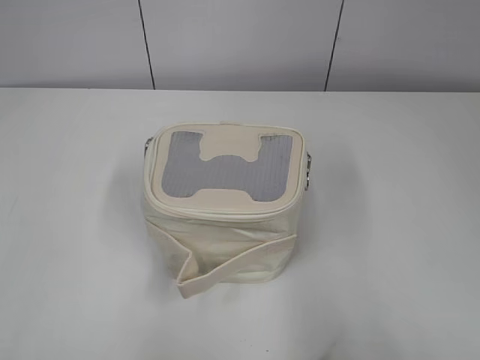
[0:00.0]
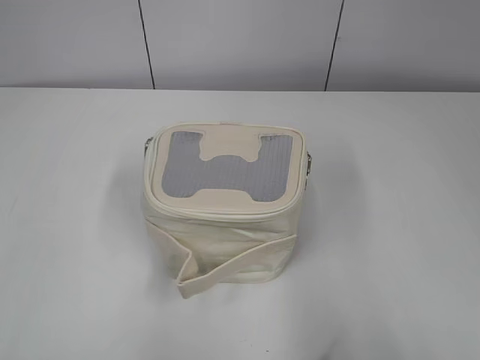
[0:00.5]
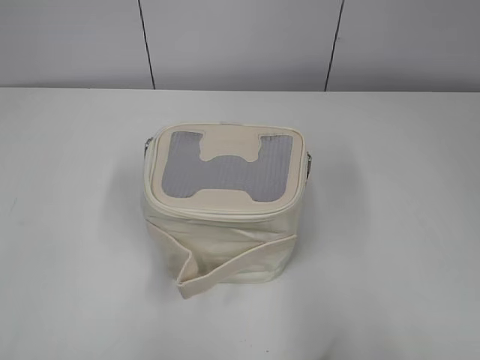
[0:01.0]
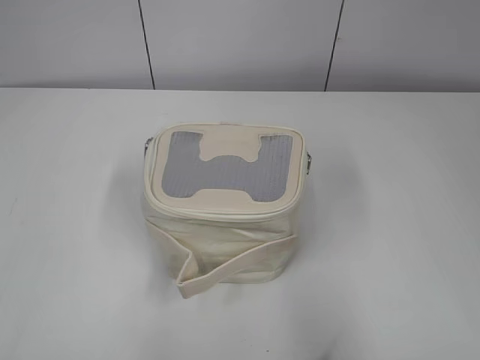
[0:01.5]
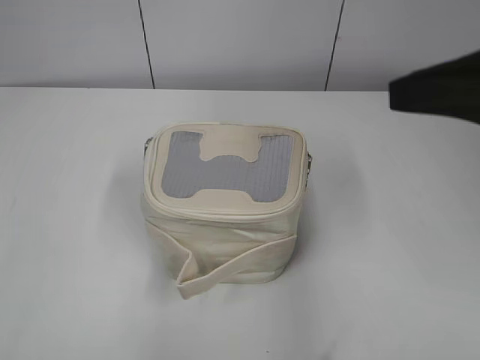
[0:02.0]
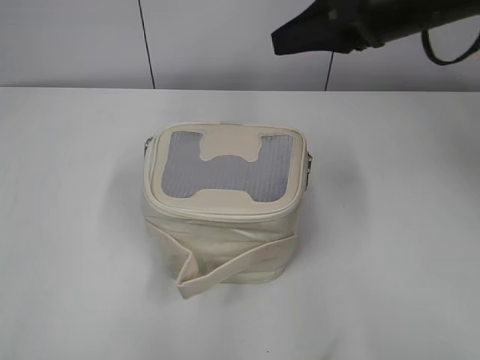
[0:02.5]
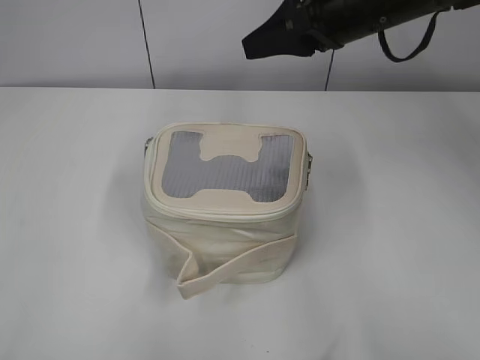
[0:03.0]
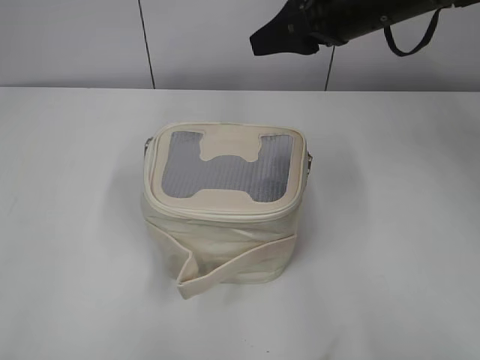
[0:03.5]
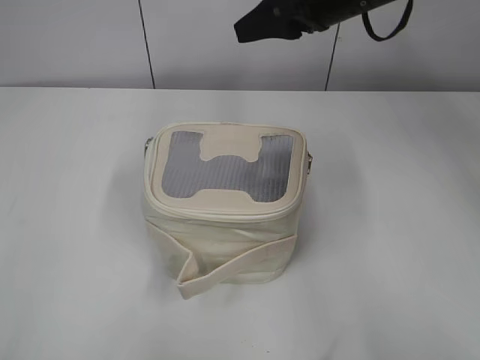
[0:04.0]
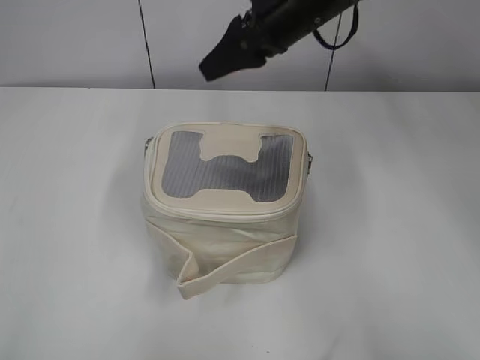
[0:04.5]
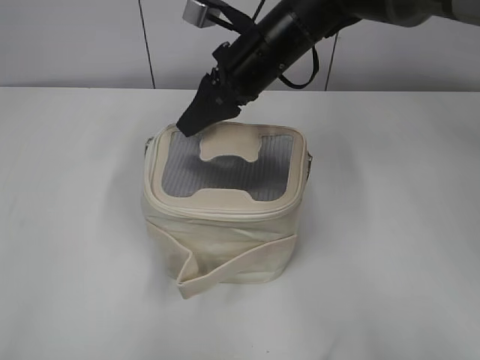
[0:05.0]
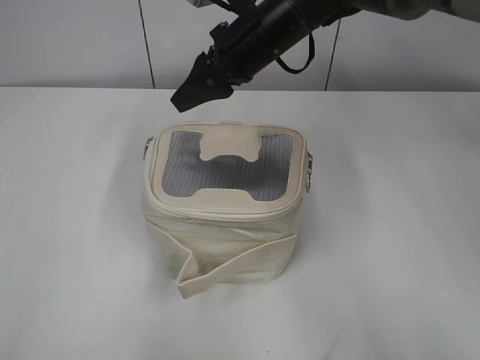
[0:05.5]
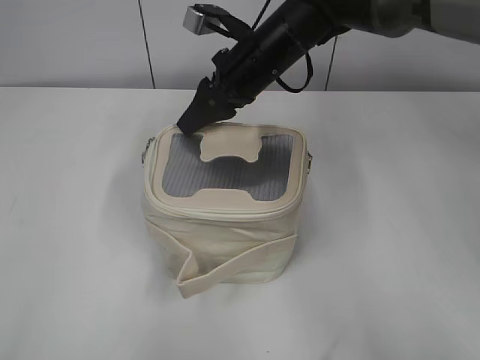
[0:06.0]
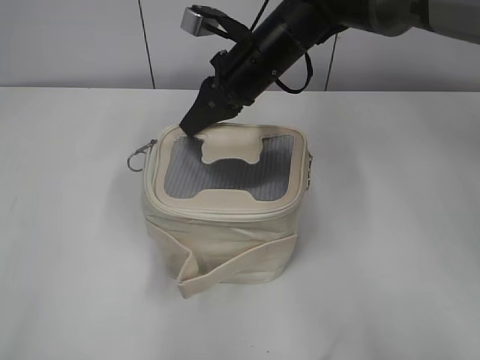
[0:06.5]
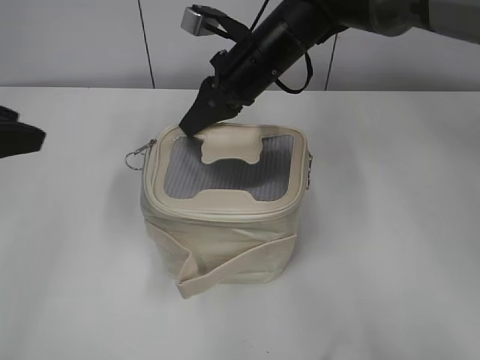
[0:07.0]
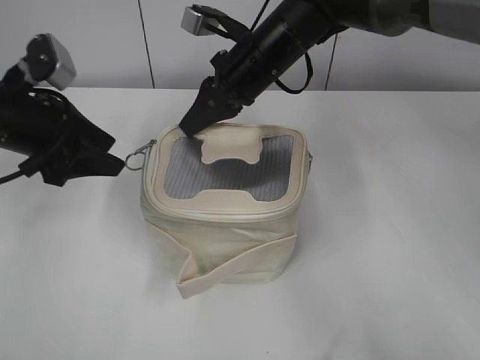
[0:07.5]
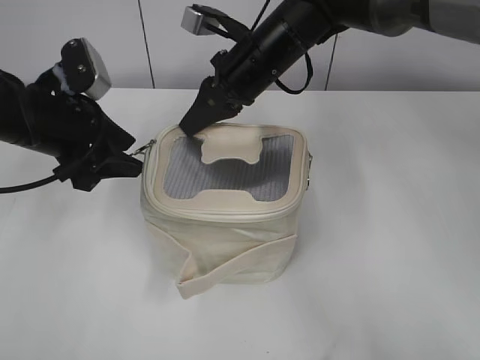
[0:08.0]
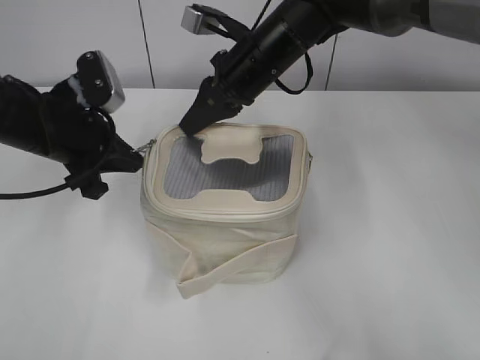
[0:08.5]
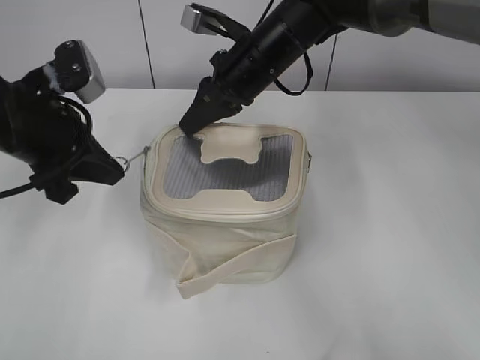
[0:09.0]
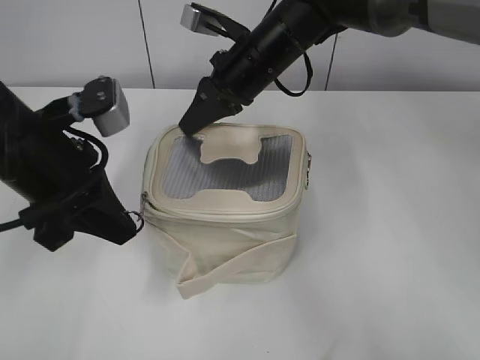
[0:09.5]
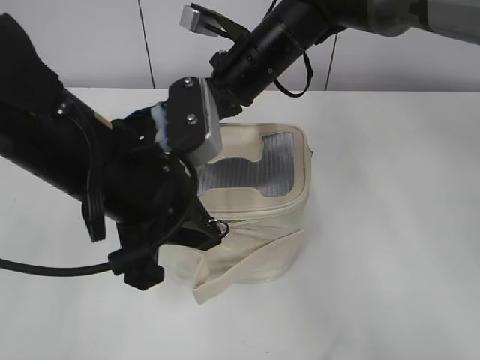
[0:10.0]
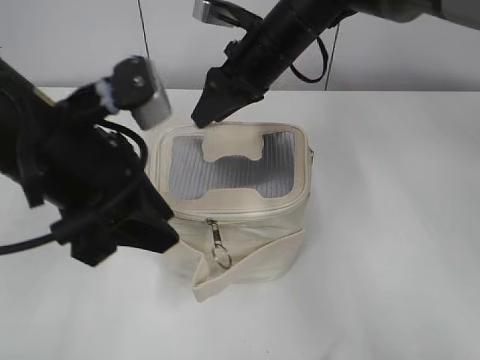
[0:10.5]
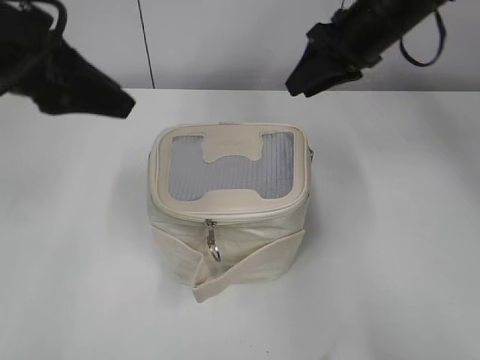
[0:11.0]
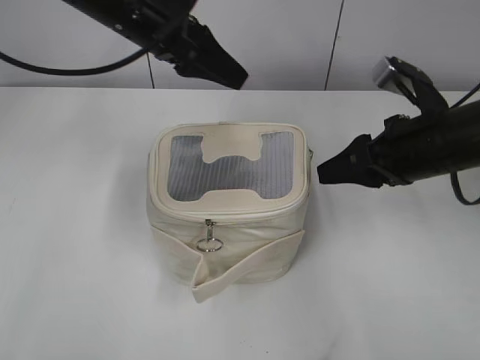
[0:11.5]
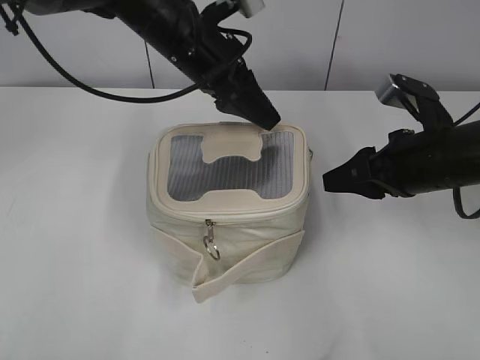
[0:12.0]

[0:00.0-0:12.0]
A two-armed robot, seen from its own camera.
Step, 0:00.0 to 0:10.0: Zip up the bag with your left hand.
0:02.0 to 0:04.0: The right gripper heads forward and to the left, covering some 25 cm.
0:04.0 to 0:06.0: The right gripper heads to the left and downward, covering some 15 cm.
0:06.0 to 0:08.0: The left gripper travels forward by about 30 cm, and opens its fingers. Meanwhile the right gripper closes up.
0:08.0 to 0:10.0: The left gripper moves backward and to the right, approximately 15 cm, and closes its fingers.
0:10.0 to 0:12.0: The left gripper goes about 20 cm forward, and opens. The right gripper goes roughly 25 cm to the right and backward, and opens up.

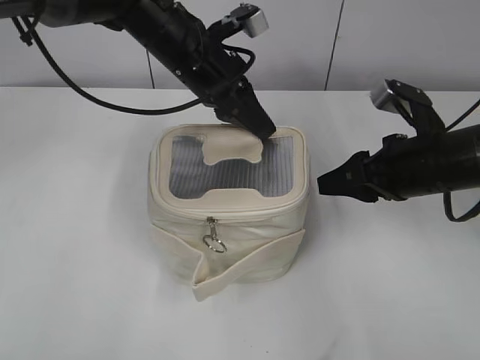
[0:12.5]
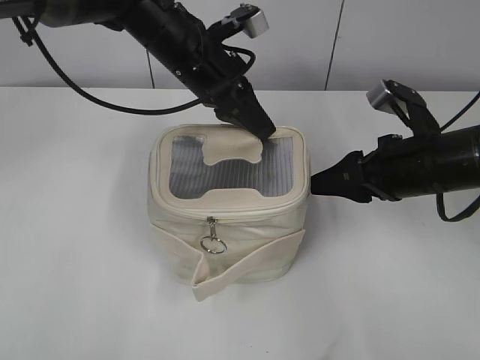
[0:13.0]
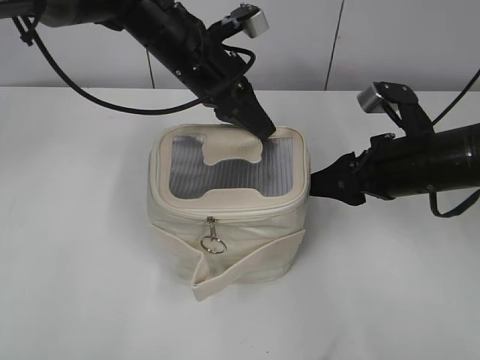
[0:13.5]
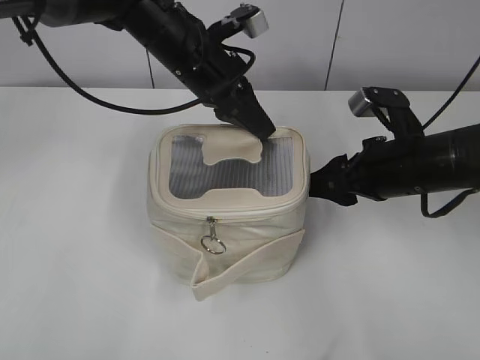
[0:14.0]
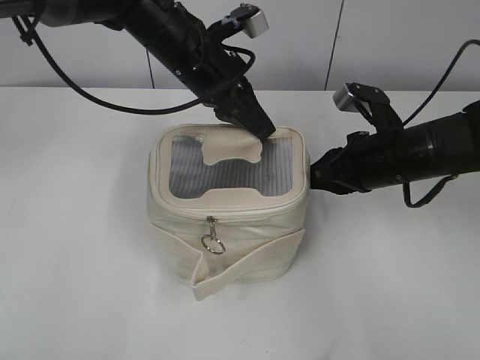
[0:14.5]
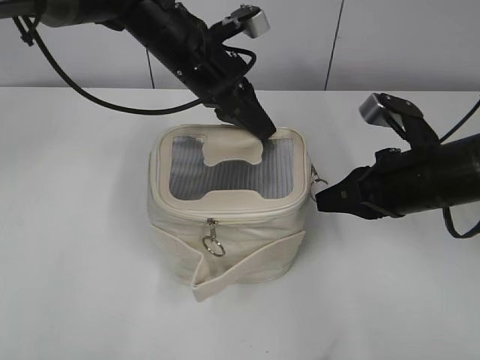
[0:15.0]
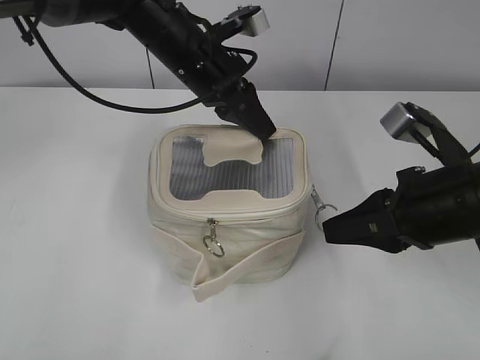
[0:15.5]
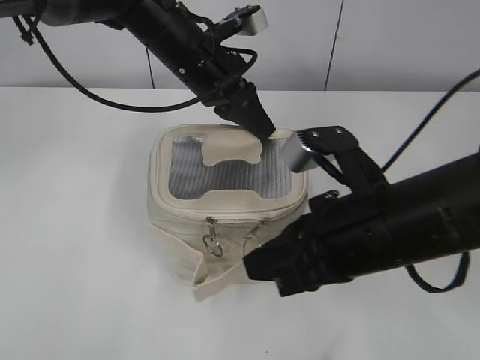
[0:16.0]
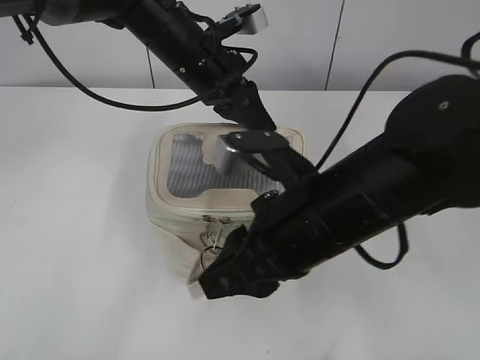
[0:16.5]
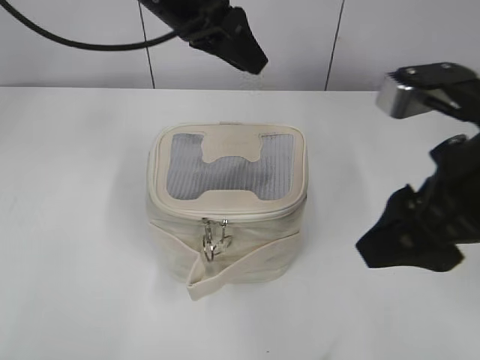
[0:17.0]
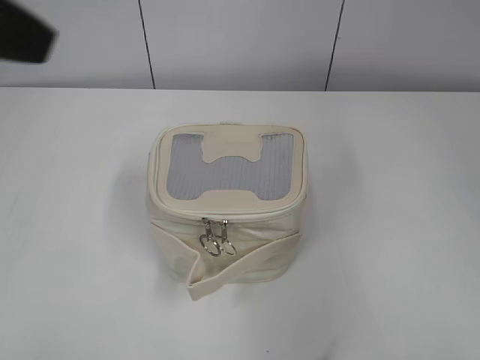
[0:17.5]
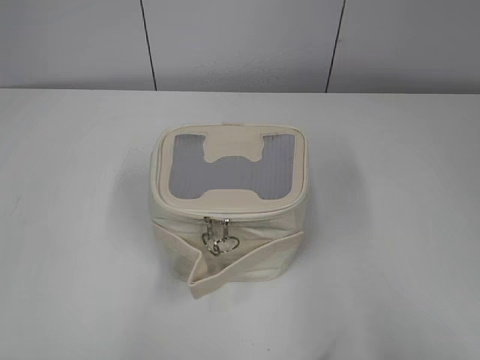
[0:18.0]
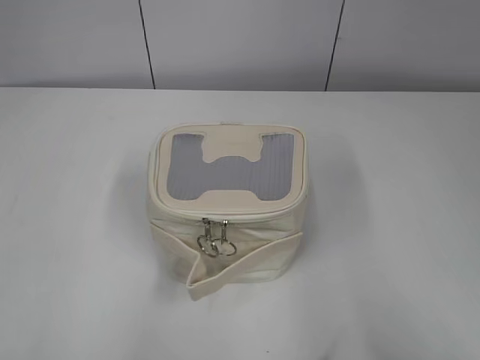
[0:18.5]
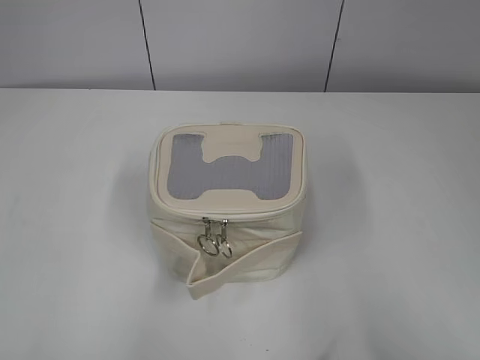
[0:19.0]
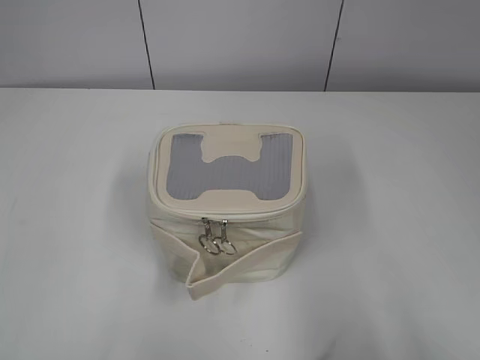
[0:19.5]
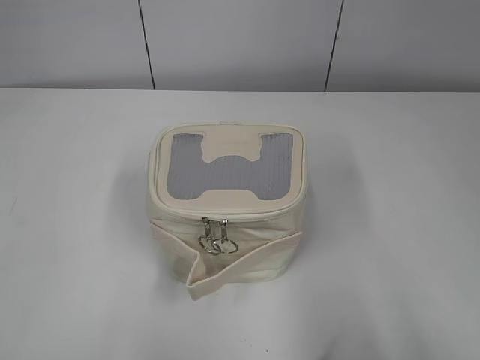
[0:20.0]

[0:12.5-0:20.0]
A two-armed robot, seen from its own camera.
Step, 0:12.5 to 0:16.5: Zip up the bag with your right hand.
0:12.5 to 0:14.5: The right gripper closes its fingers.
0:14.5 to 0:16.5: The right gripper heads to the left and backward, covering some 15 cm.
0:16.5 to 0:18.0: The left gripper moves backward and to the left, roughly 50 cm, and opens its fingers; the right gripper travels to the right, backward and upward by about 35 cm, and opens.

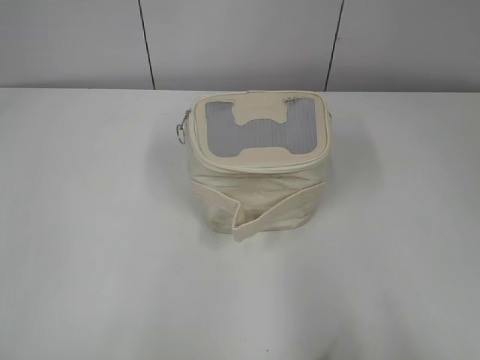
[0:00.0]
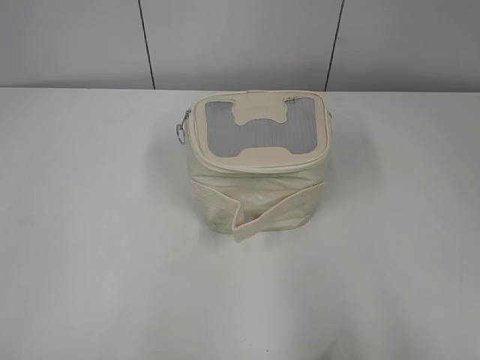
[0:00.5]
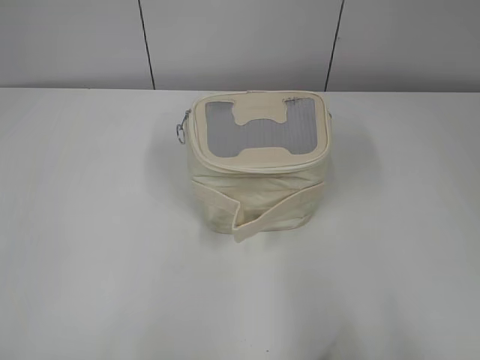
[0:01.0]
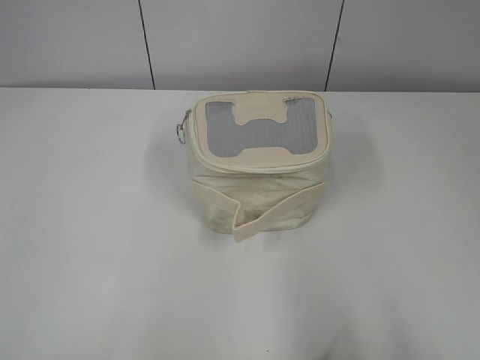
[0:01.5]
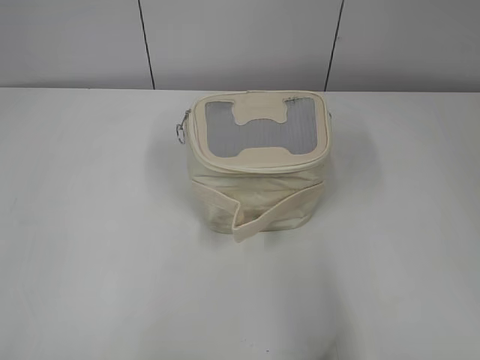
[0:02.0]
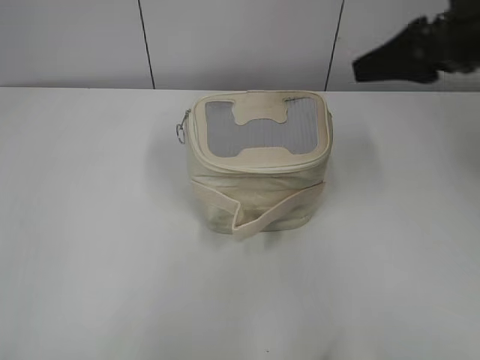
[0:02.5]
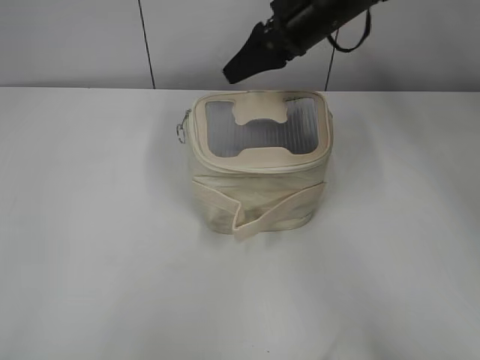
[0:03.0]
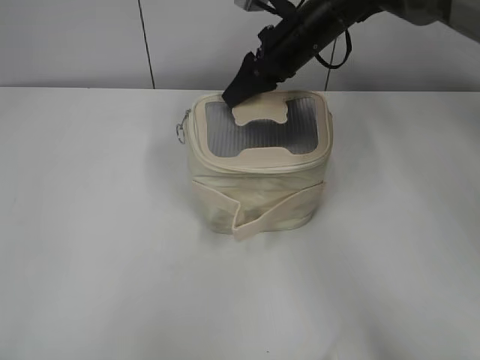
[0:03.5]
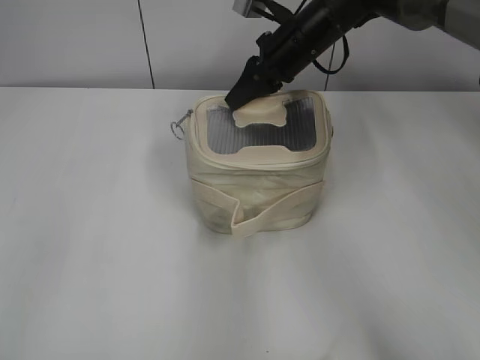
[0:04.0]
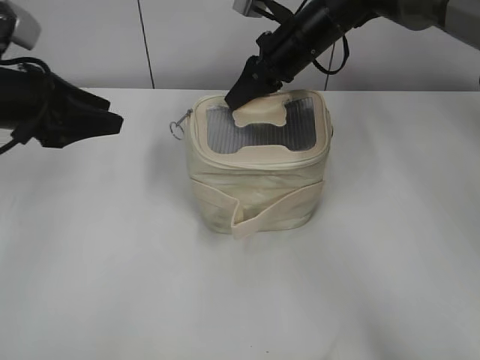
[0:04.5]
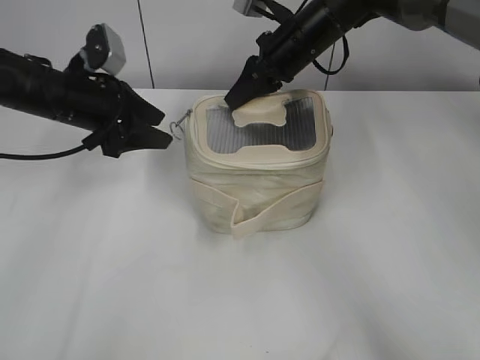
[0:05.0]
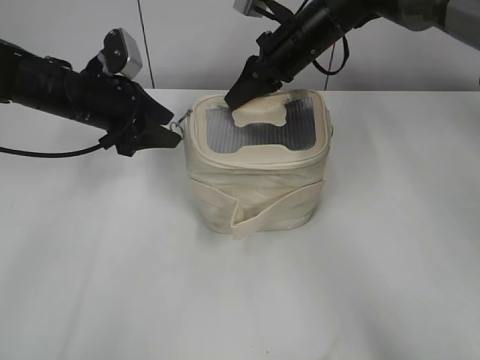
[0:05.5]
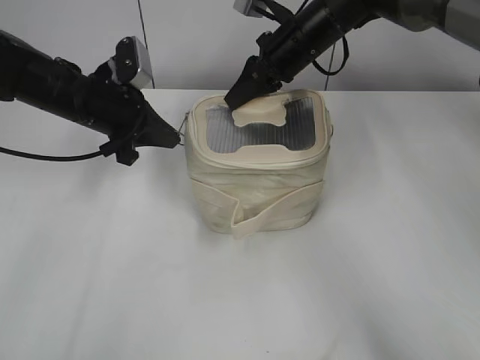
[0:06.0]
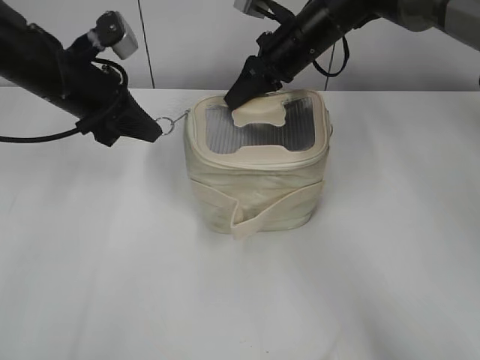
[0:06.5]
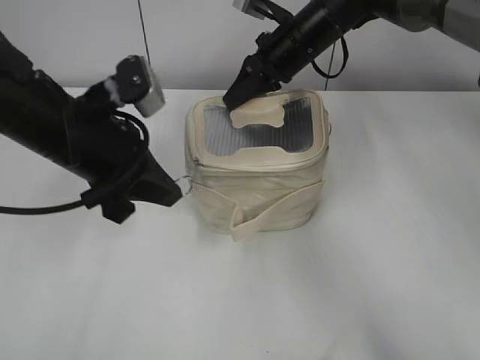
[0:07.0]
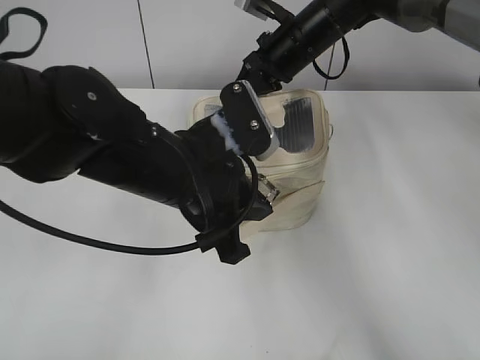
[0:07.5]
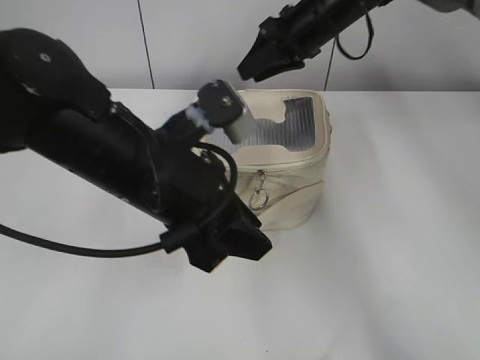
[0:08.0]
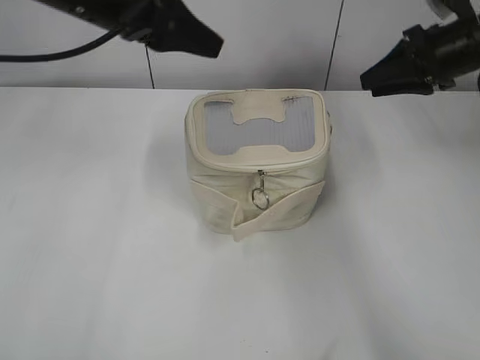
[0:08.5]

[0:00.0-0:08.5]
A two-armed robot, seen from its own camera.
Step, 0:00.0 to 0:07.5: Zip up the bag with your left hand.
0:02.0 to 0:04.0: The right gripper shifts approximately 50 cm forward and to the left, and closes its fingers. Meanwhile the left gripper heads forward, covering about 15 cm.
0:04.0 to 0:06.5: The left gripper moves forward, downward and to the right, roughly 30 cm, and closes up.
0:06.5 to 0:08.5: The left gripper travels upward and to the right by approximately 10 cm, goes backward and returns, some 15 cm each way, and opens its fingers; the right gripper is displaced to the right by approximately 20 cm, and opens.
